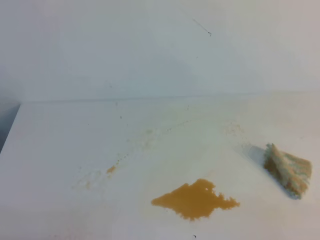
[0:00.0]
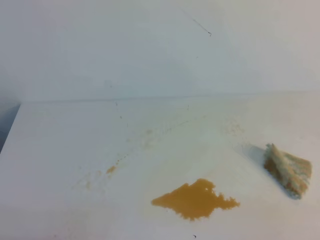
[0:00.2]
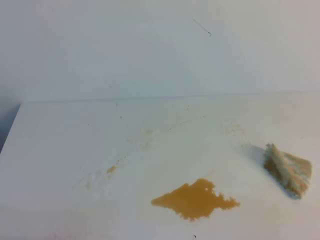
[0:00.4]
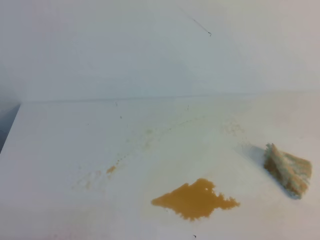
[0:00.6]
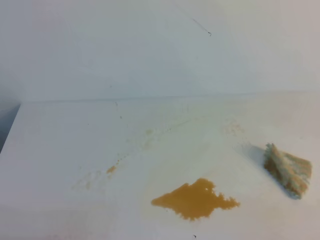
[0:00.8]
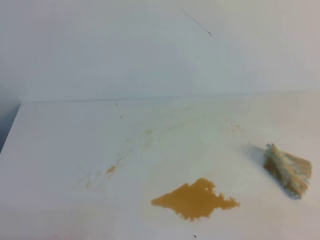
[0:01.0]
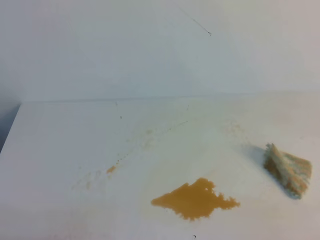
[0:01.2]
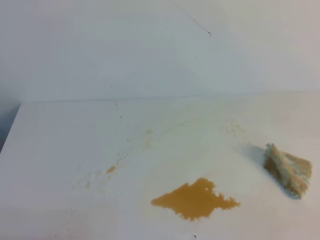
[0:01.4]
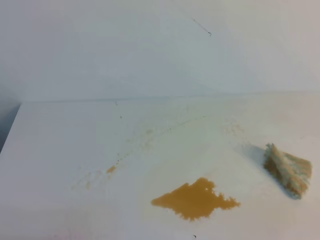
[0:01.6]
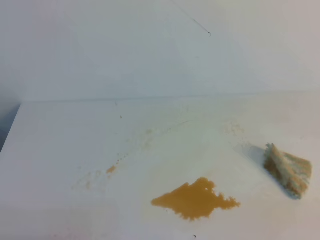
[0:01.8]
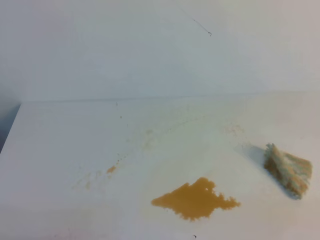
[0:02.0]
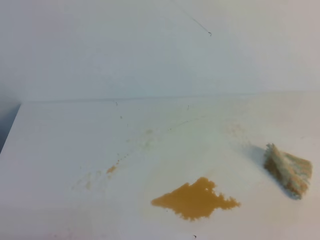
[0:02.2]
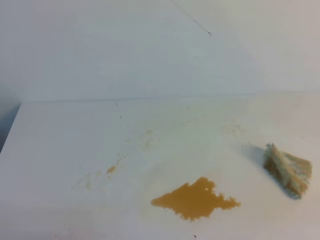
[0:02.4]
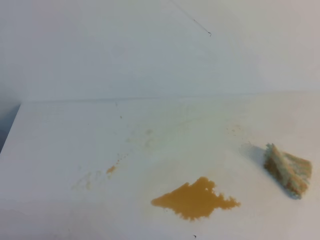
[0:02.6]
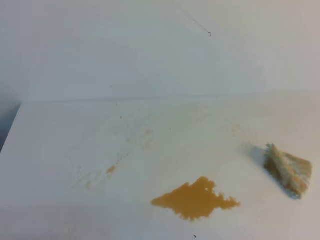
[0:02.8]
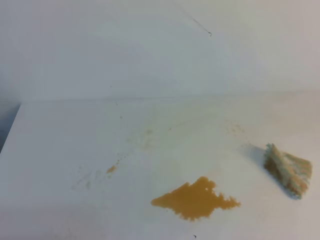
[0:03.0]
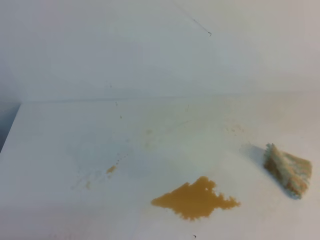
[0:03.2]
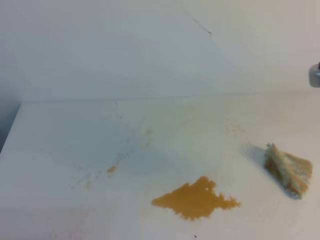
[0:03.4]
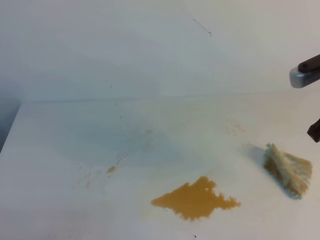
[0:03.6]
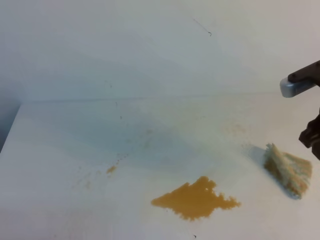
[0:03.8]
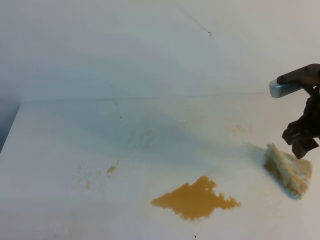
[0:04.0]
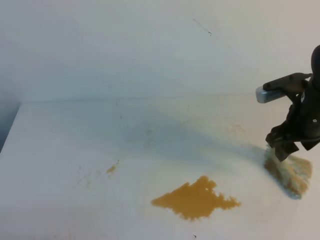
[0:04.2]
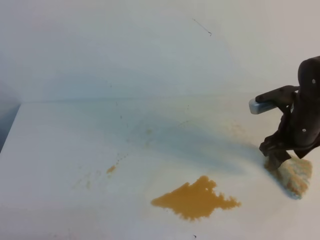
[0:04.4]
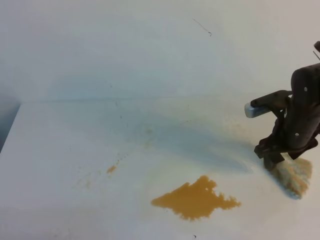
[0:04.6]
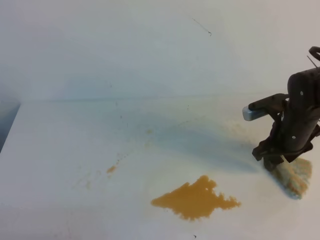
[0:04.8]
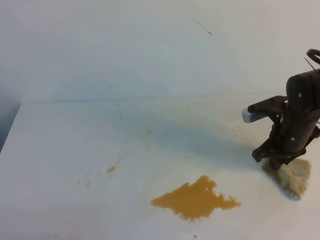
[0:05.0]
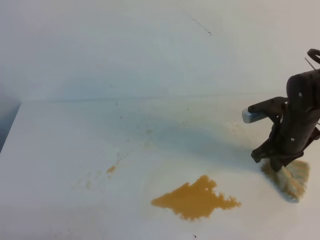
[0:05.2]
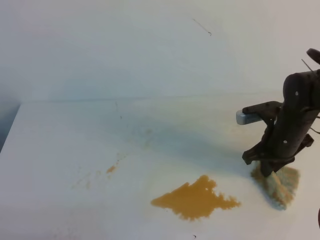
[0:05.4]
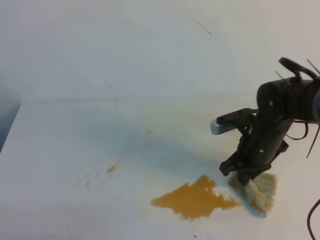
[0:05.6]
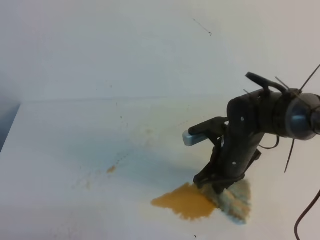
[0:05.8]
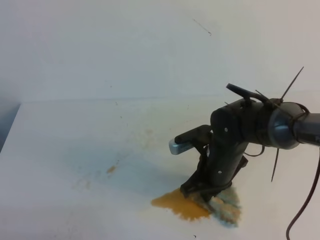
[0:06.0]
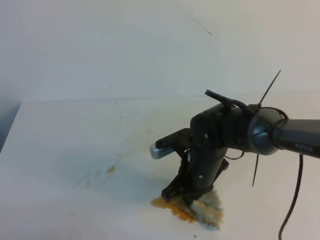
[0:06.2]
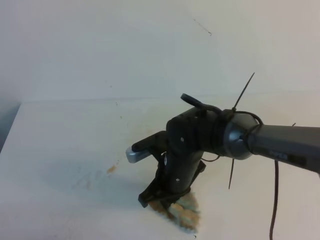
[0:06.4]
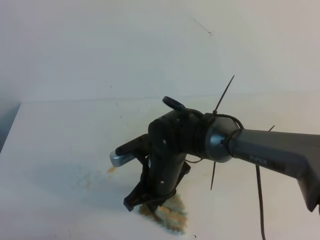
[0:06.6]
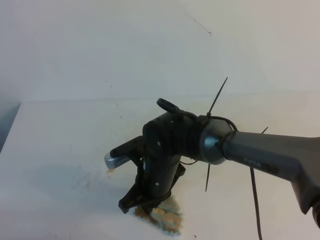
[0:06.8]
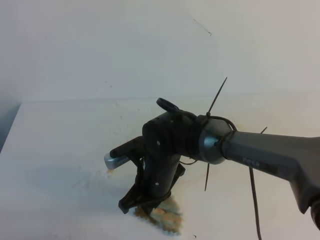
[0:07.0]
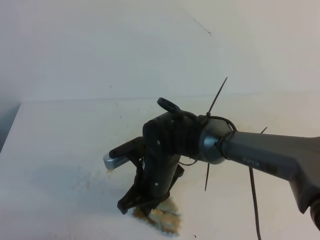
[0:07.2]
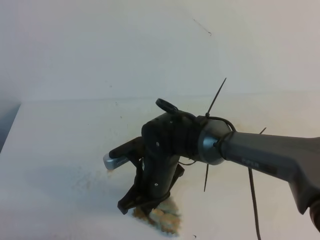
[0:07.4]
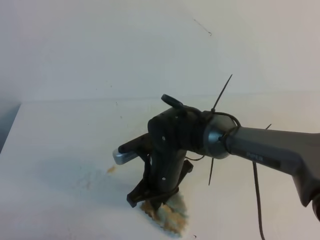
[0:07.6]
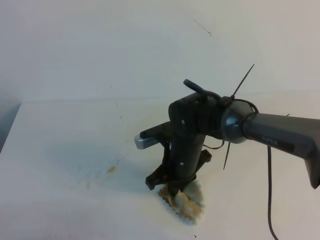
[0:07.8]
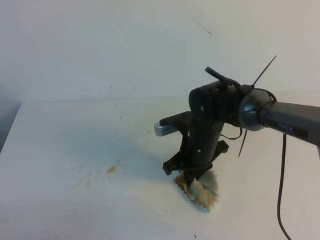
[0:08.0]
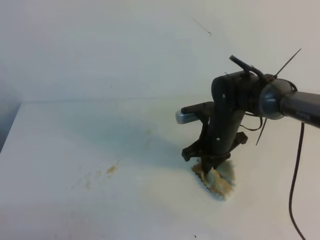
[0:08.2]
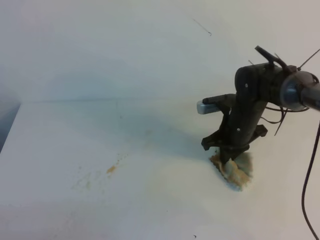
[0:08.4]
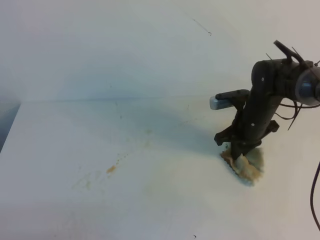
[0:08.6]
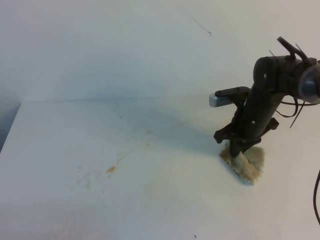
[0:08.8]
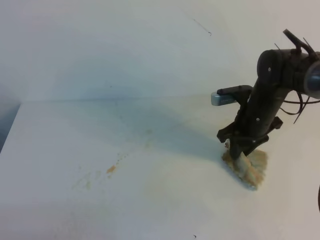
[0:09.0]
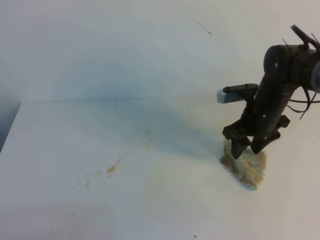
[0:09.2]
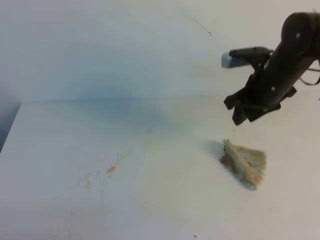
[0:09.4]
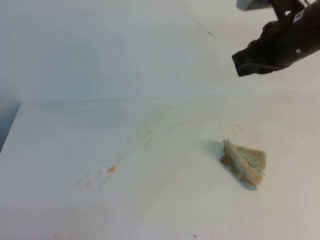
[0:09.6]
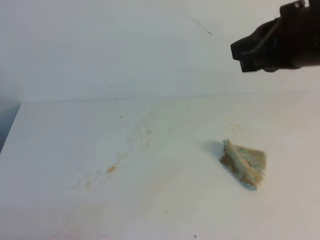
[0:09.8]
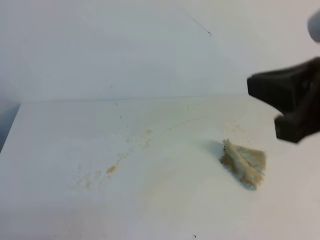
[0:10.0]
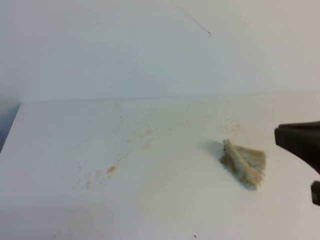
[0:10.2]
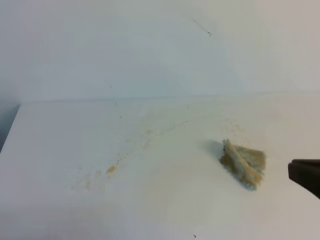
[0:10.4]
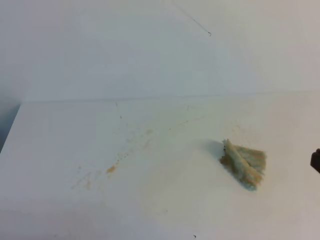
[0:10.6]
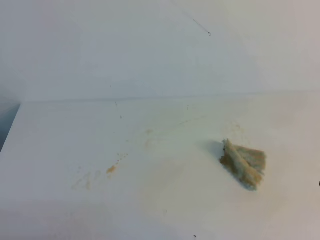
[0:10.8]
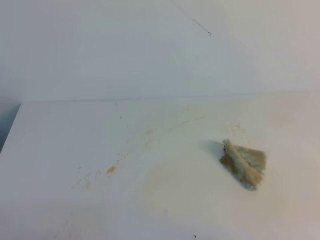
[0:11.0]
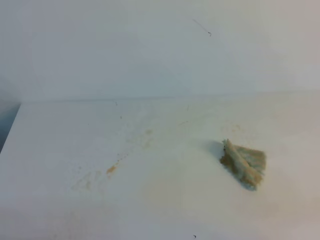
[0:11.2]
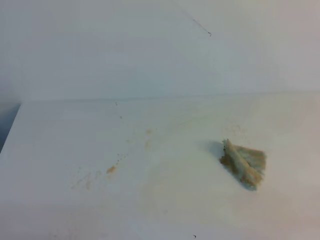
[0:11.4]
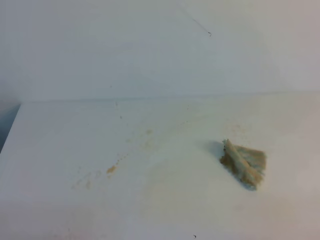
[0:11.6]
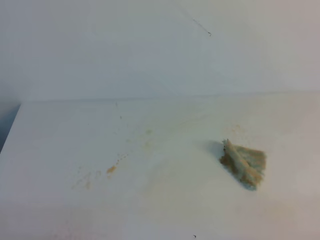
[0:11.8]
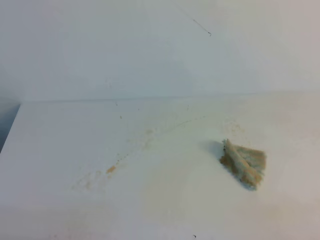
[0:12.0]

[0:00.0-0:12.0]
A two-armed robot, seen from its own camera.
0:03.0 to 0:04.4: The right gripper is displaced forward, downward and to the left by roughly 30 cm, and opens its fingers.
0:04.4 to 0:06.0: The right gripper is displaced to the left by approximately 15 cm, and closes its fingers.
0:06.0 to 0:07.6: The right gripper heads to the left, covering some 10 cm.
0:07.6 to 0:09.0: The right gripper shifts about 20 cm to the right and forward, and opens.
0:09.0 to 0:10.4: The right gripper is displaced backward and upward by about 35 cm, and closes its fingers.
0:10.4 to 0:12.0: The right gripper shifts some 20 cm downward, to the right and backward.

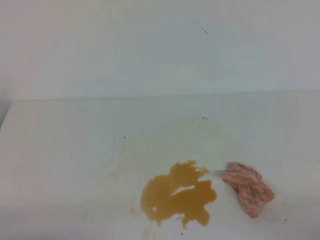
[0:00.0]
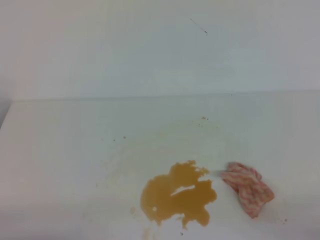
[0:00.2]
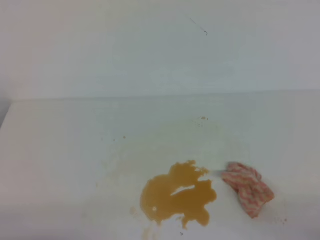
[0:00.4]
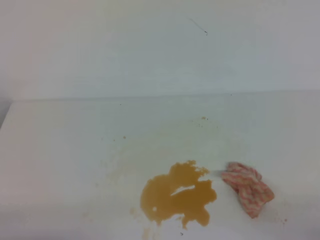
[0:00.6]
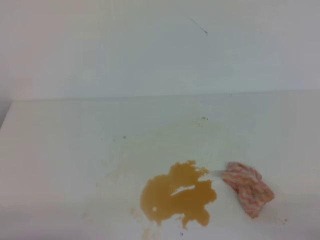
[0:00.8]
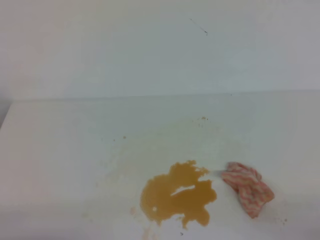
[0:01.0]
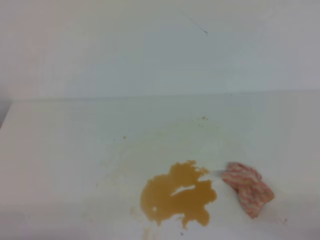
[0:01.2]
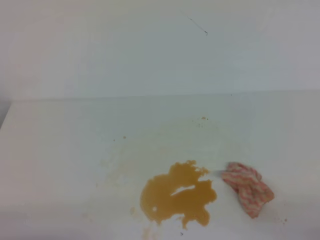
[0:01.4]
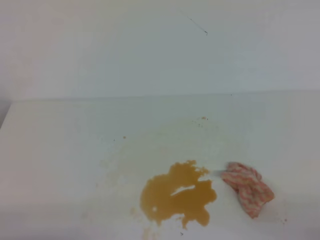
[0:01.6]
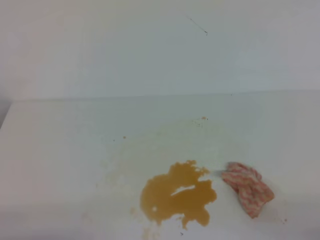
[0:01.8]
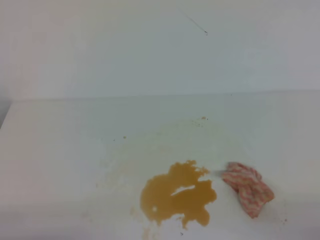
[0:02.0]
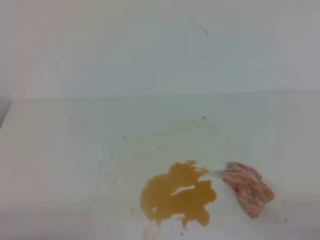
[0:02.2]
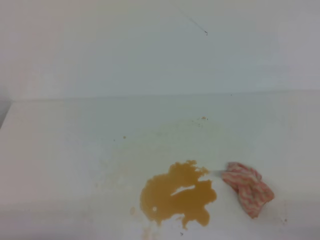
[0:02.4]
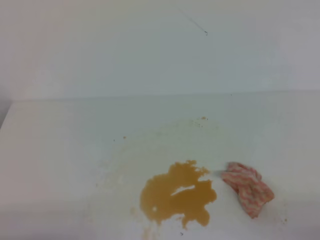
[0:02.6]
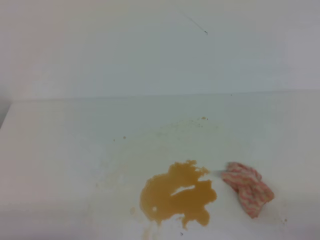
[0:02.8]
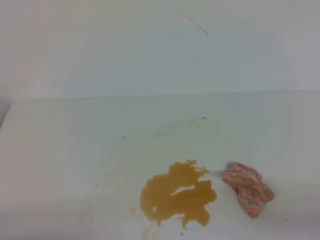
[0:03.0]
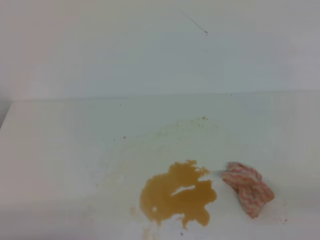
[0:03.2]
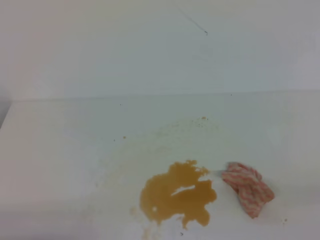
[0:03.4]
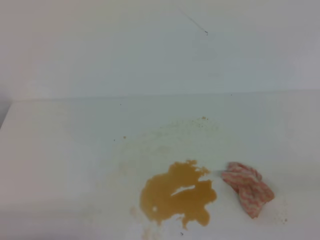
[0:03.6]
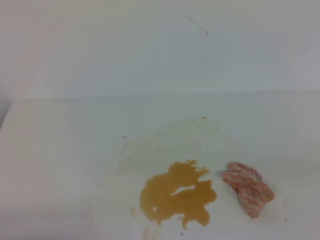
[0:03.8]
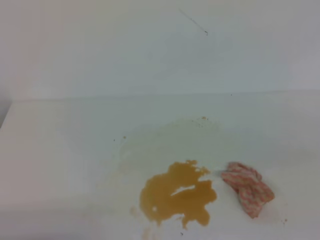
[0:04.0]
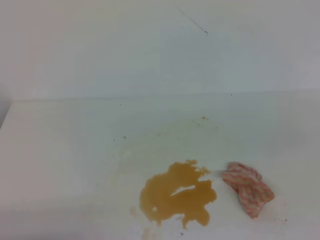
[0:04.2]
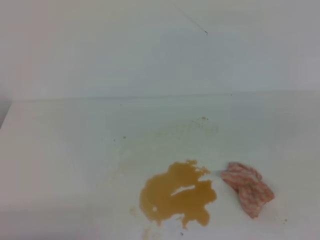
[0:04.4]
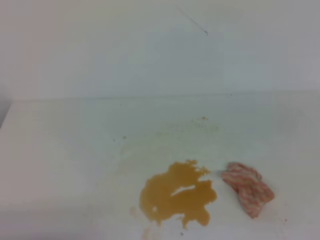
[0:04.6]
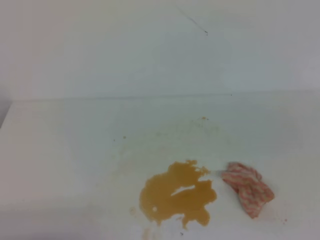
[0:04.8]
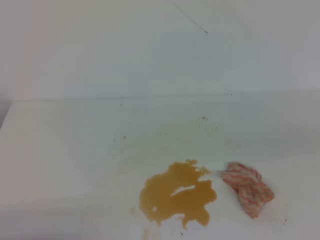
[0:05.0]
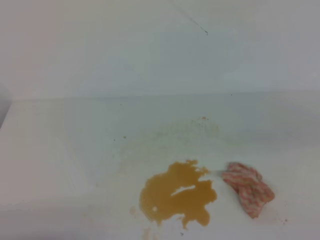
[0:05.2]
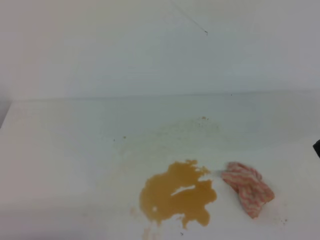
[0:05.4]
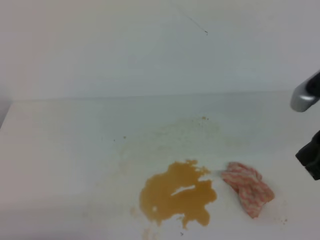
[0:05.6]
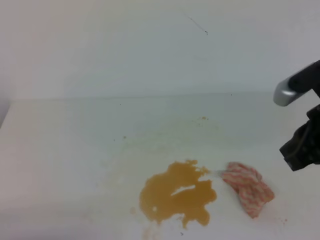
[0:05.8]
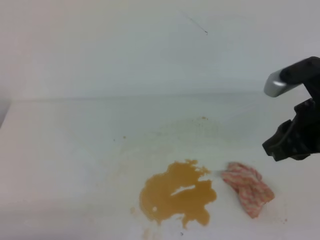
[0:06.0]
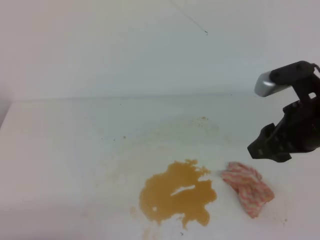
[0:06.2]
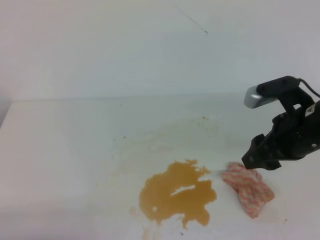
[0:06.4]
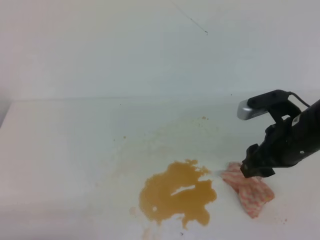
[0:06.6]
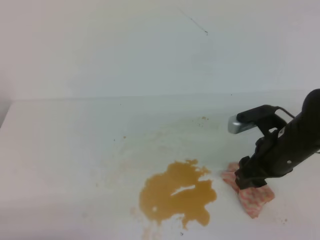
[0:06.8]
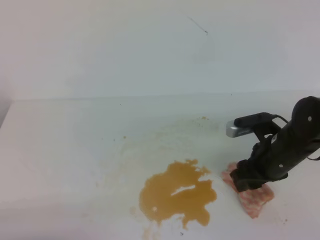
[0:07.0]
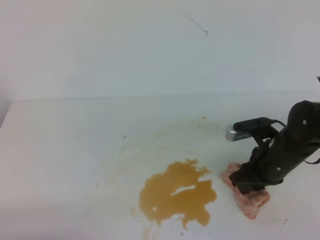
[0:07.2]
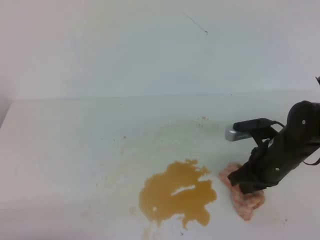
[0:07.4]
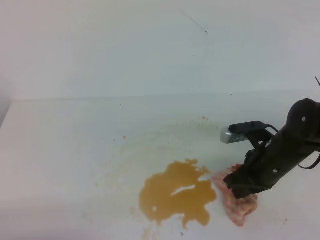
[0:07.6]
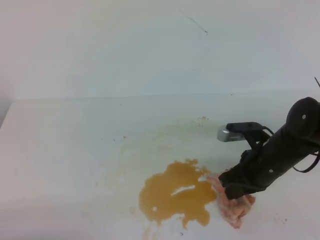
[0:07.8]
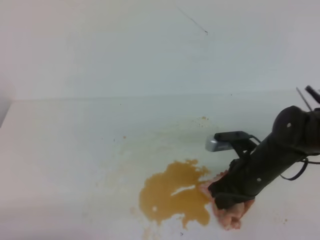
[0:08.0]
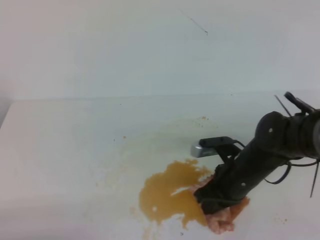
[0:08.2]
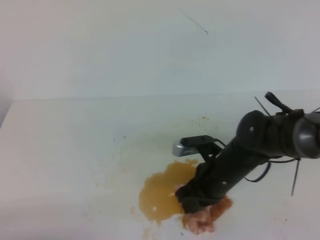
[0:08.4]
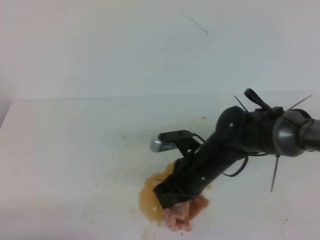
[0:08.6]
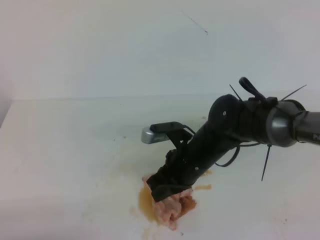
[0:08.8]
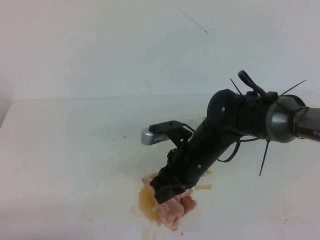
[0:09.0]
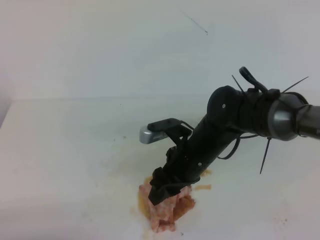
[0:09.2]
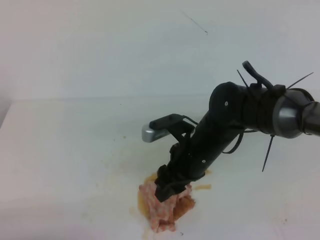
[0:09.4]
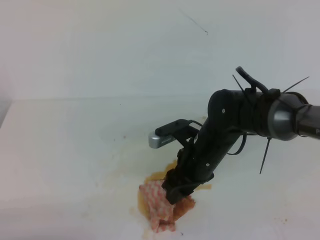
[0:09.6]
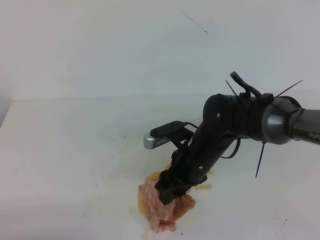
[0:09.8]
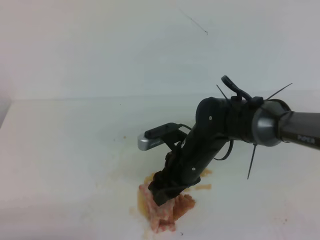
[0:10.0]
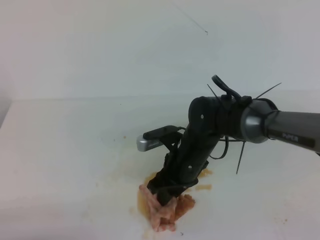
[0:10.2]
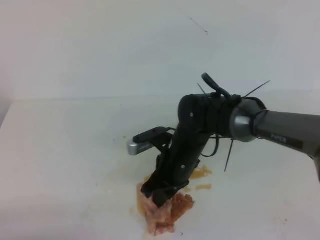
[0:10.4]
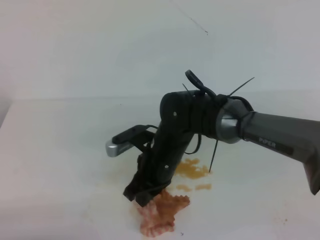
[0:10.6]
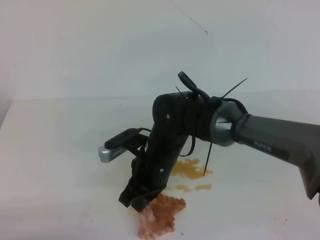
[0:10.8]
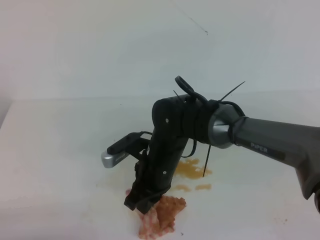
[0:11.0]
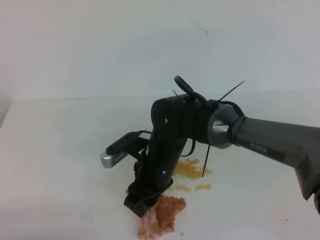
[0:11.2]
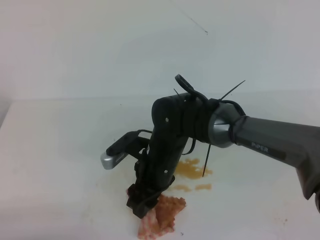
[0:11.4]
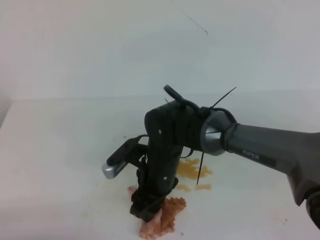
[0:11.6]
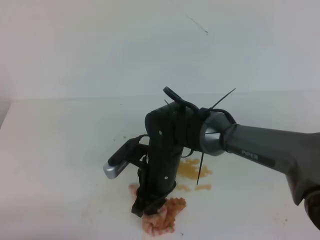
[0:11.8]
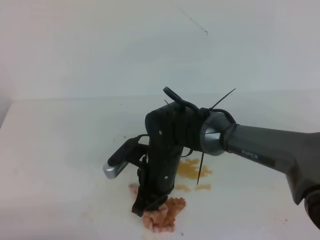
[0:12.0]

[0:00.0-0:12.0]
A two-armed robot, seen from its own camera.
0:00.0 to 0:01.6: Both grippers stay about where they are.
0:04.4 to 0:06.0: The right gripper heads forward, to the left and downward, covering roughly 20 cm.
0:06.0 to 0:07.6: The right gripper is displaced downward by some 15 cm, and opens, then closes once more.
0:07.6 to 0:09.0: The right gripper goes roughly 15 cm to the left.
0:09.0 to 0:10.4: The right gripper opens and closes again.
0:10.4 to 0:12.0: The right gripper opens and closes again.
